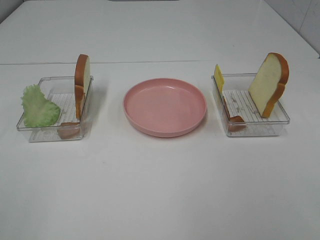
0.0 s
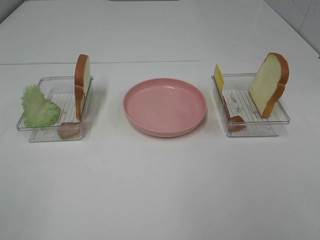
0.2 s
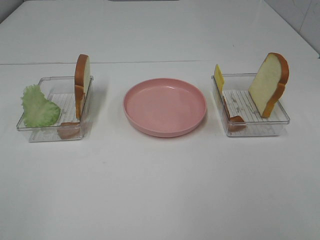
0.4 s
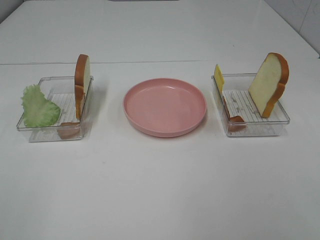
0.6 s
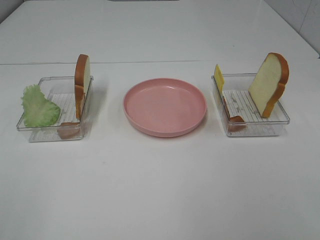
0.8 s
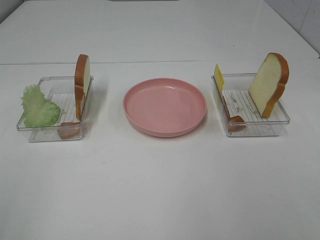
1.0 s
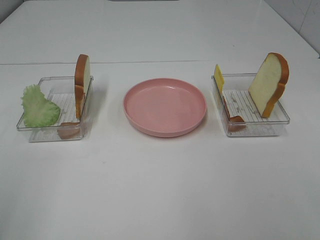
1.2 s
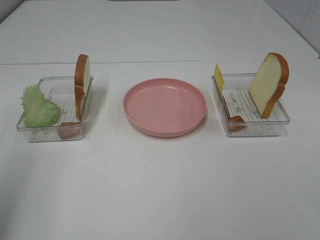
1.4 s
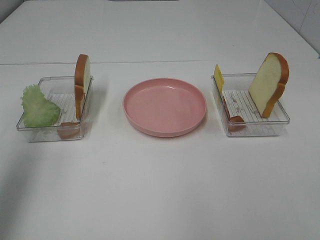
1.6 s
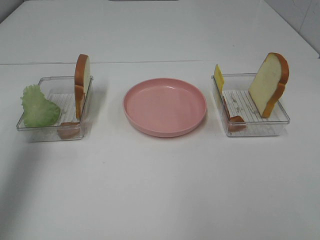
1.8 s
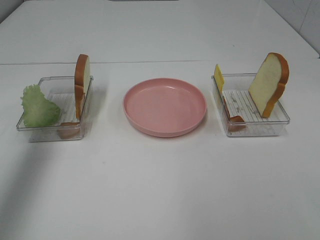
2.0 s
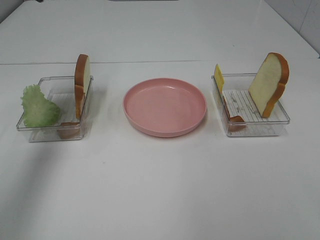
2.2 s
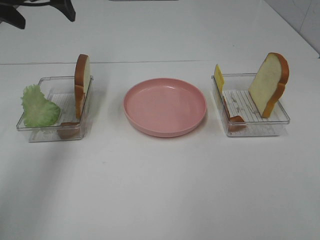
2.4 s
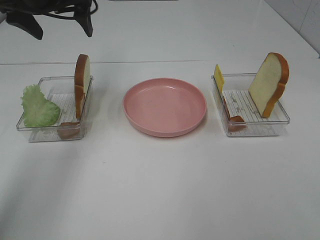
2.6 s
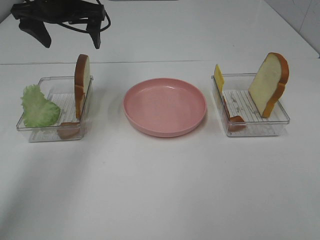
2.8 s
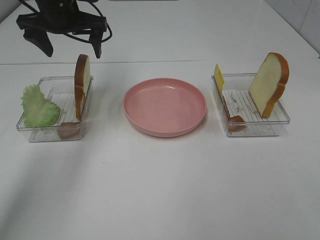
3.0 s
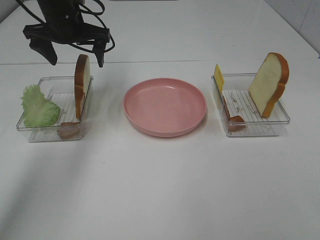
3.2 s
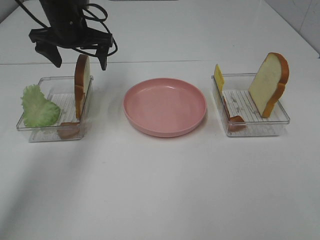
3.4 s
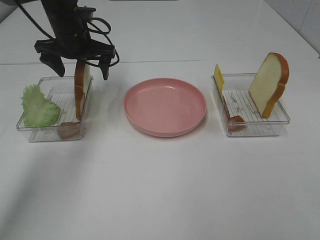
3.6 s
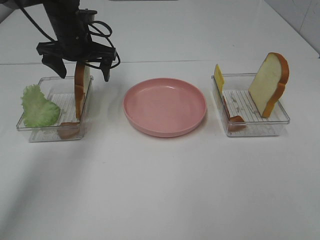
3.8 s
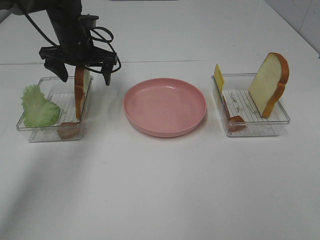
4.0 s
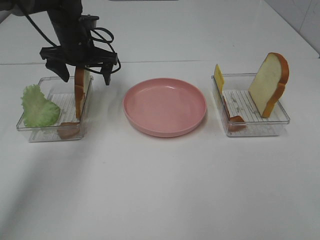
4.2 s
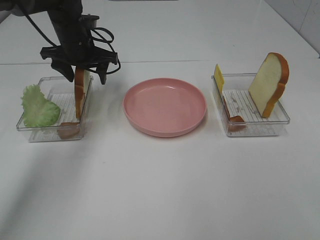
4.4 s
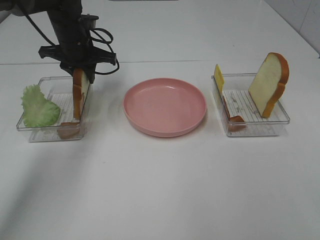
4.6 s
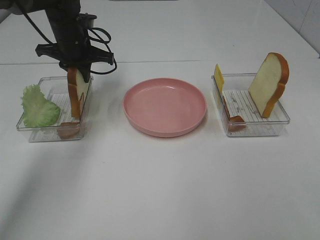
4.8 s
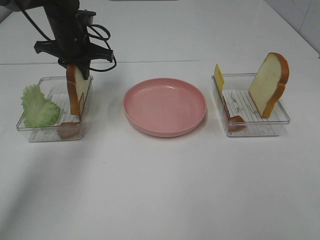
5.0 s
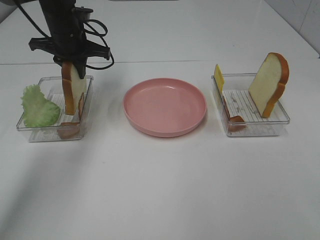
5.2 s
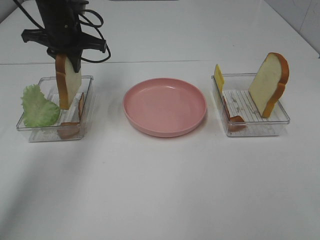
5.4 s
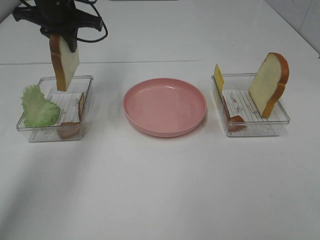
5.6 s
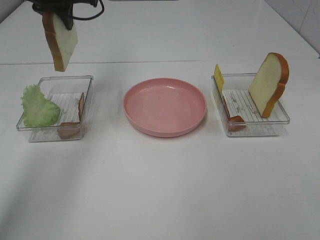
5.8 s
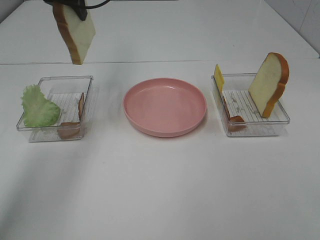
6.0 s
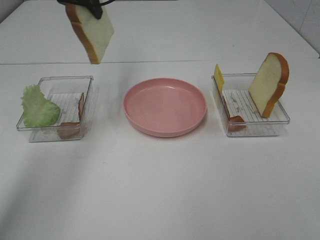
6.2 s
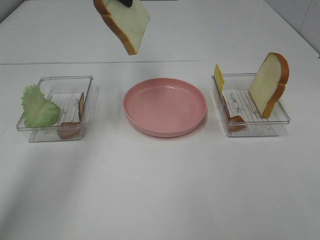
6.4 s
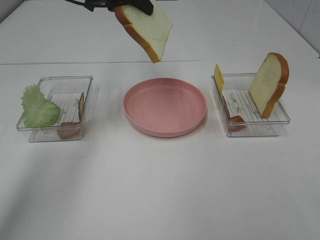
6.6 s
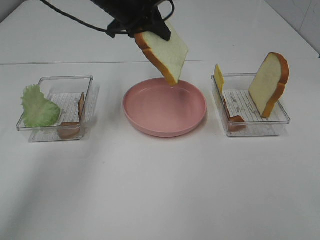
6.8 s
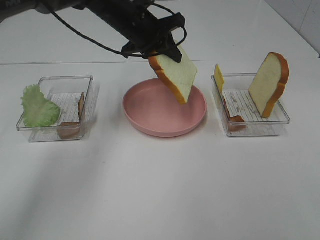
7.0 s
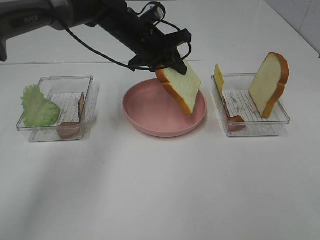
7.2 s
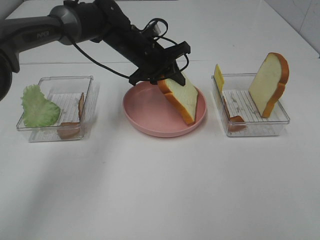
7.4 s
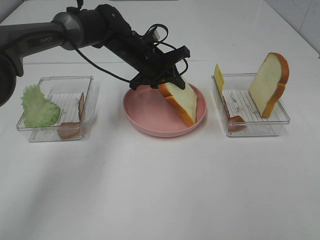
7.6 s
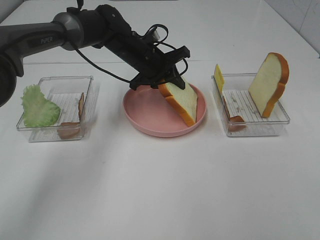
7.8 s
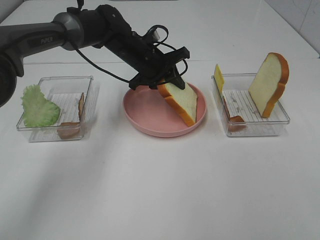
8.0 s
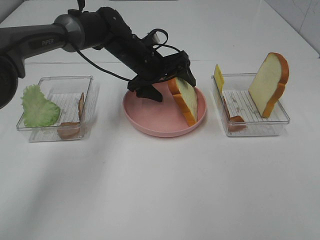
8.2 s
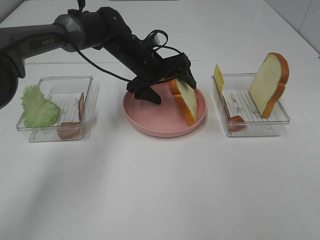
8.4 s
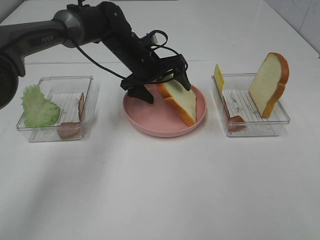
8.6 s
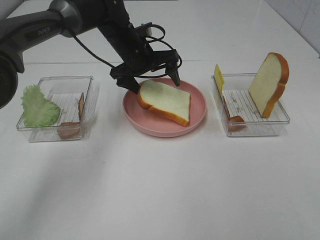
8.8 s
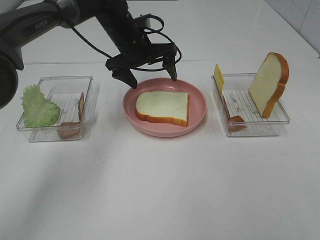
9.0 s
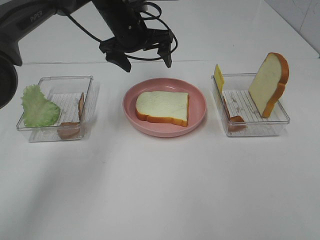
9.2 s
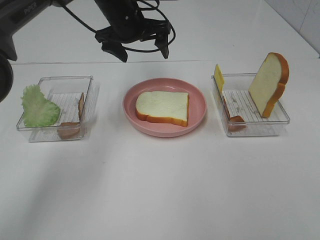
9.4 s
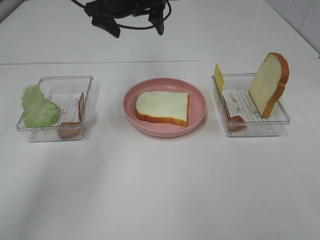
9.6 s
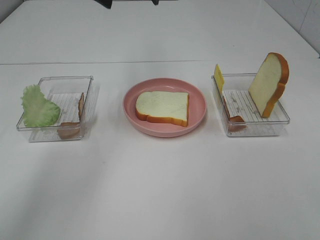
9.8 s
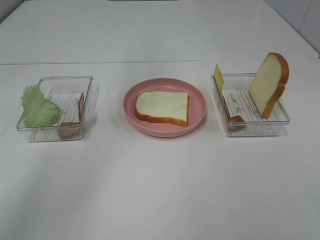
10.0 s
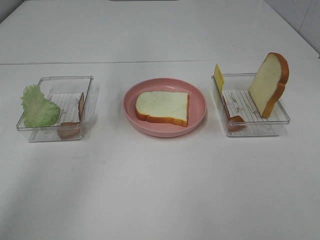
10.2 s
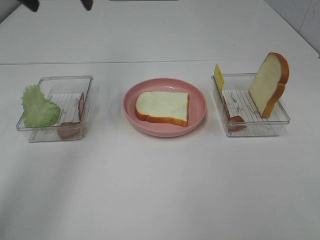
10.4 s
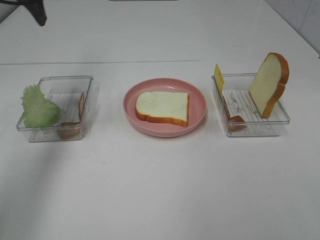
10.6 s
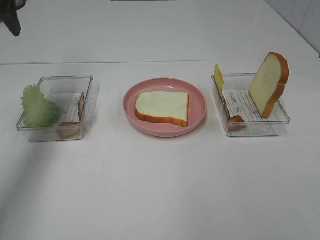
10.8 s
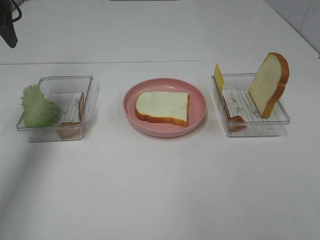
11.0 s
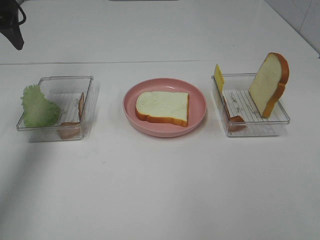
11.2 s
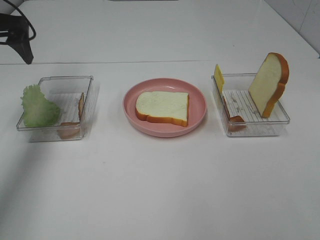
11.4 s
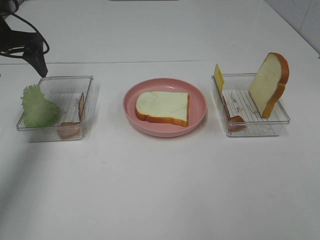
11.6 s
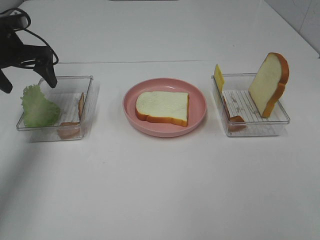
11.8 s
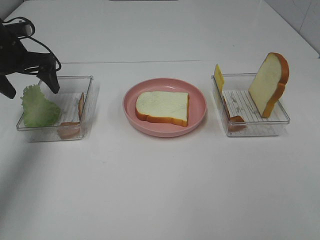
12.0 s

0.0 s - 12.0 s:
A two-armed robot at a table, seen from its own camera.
Task of the whole recording: Make sandwiches.
Step, 0.0 s - 4.8 s: Left hand:grab the bread slice.
Step, 5.0 s - 9.0 s: Left hand:place the bread slice on the plate.
0.0 s - 1.6 s: The left gripper moves forward and upward, approximately 25 cm.
1.6 s - 3.0 s: The left gripper goes about 35 cm forward, to the right and downward.
3.0 s - 4.4 s: The left gripper goes about 10 cm downward.
4.4 s - 6.0 s: The left gripper travels upward by roughly 15 cm, and closes its fingers.
6.0 s - 7.6 s: The left gripper shifts approximately 25 cm downward and to the right.
7.6 s - 9.0 s: The left gripper opens up.
9.0 s - 10.4 s: The left gripper travels upward and to the left by some 20 cm.
10.4 s - 12.0 s: The left gripper is displaced downward and to the left by roughly 20 cm.

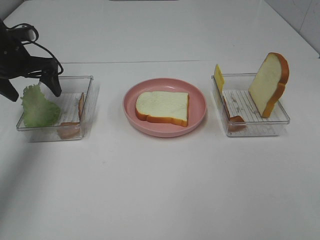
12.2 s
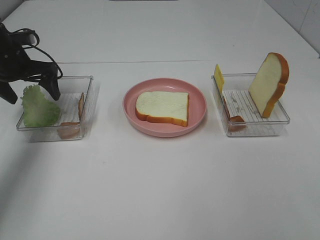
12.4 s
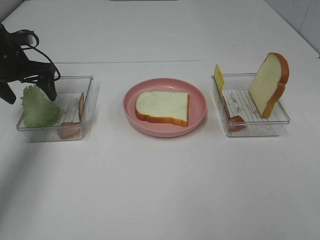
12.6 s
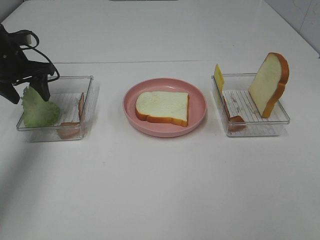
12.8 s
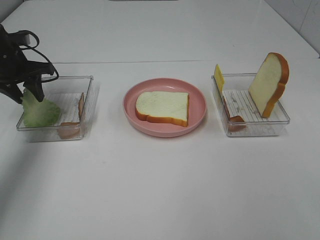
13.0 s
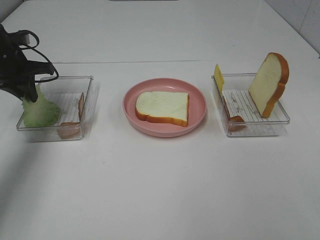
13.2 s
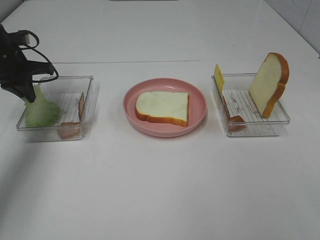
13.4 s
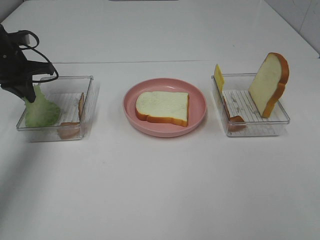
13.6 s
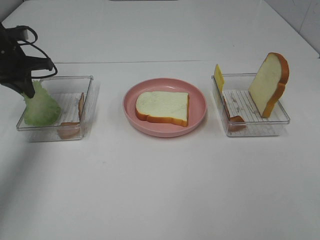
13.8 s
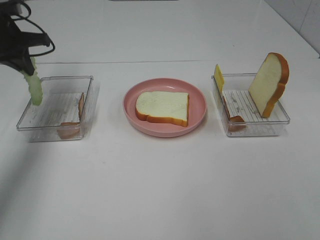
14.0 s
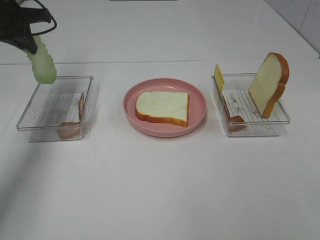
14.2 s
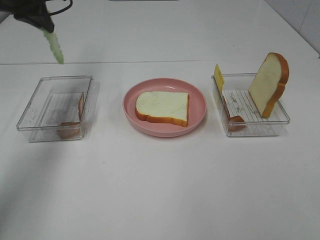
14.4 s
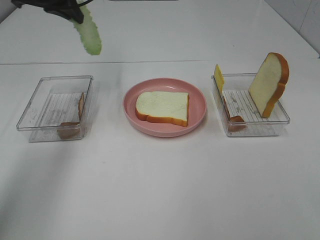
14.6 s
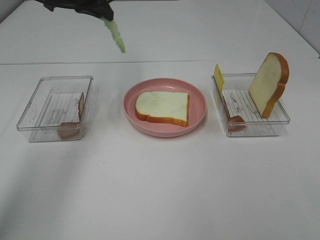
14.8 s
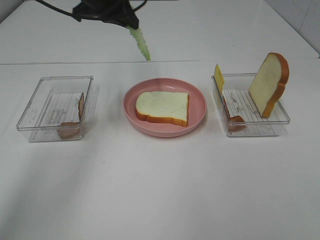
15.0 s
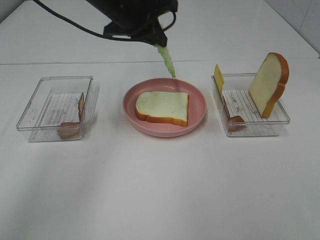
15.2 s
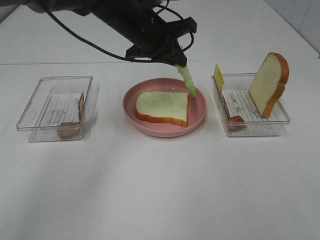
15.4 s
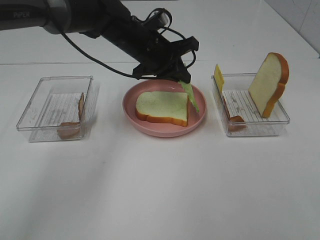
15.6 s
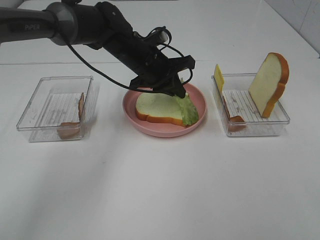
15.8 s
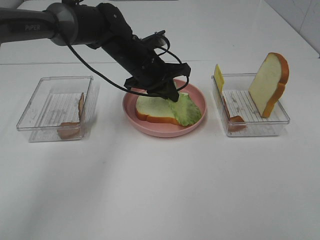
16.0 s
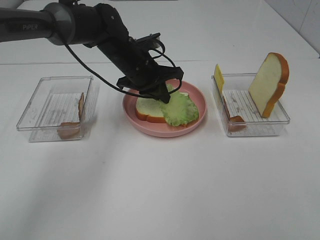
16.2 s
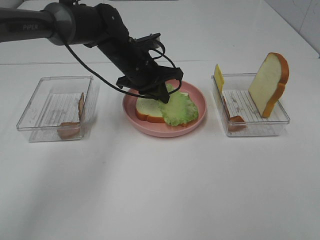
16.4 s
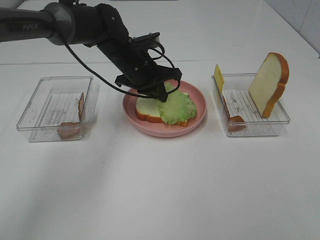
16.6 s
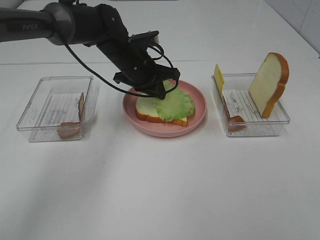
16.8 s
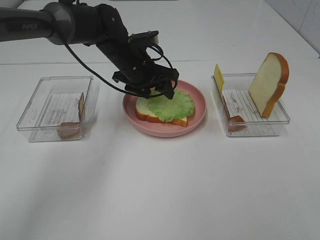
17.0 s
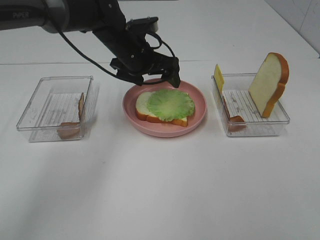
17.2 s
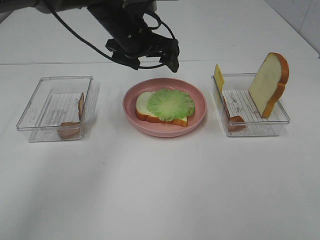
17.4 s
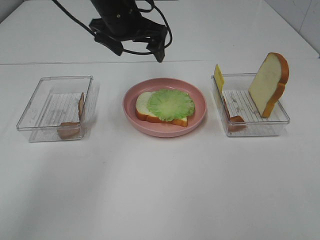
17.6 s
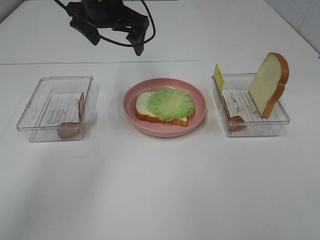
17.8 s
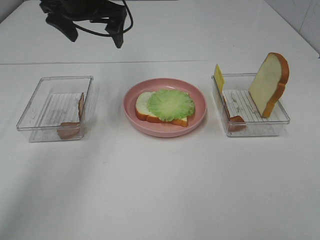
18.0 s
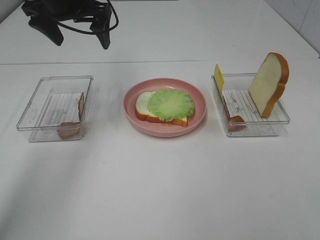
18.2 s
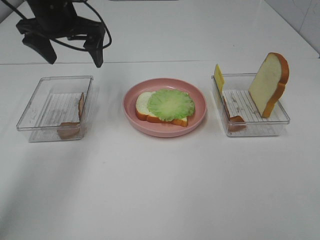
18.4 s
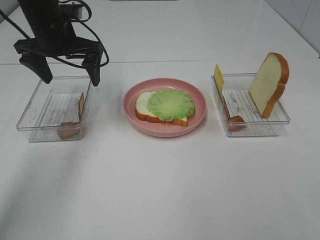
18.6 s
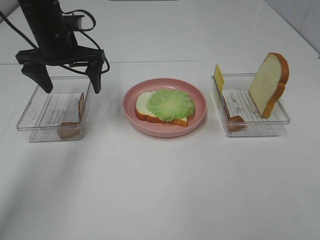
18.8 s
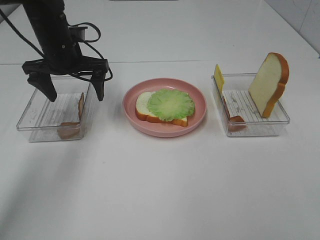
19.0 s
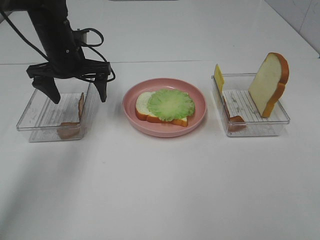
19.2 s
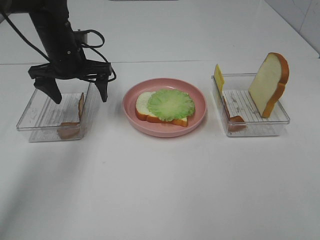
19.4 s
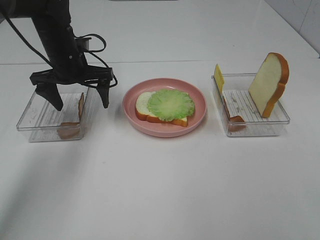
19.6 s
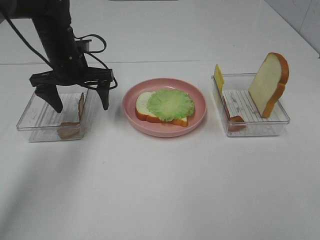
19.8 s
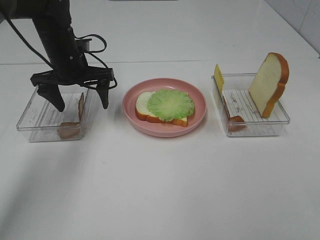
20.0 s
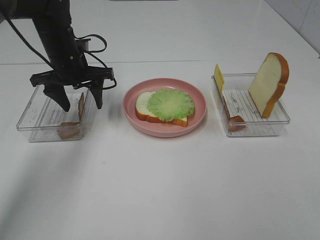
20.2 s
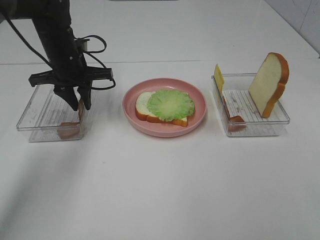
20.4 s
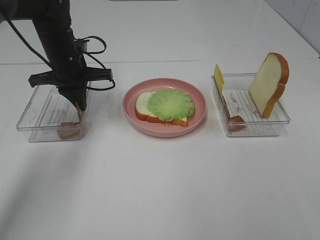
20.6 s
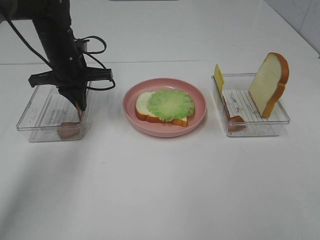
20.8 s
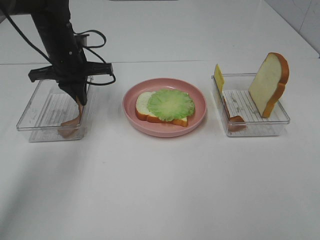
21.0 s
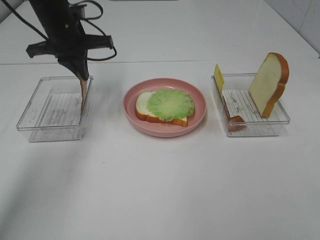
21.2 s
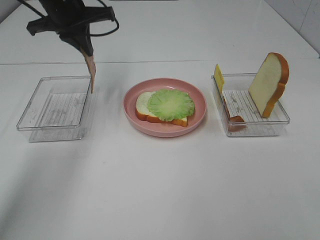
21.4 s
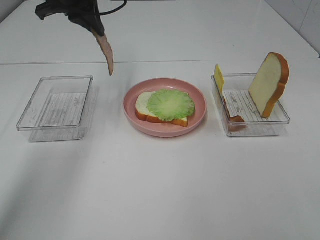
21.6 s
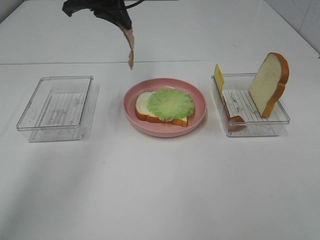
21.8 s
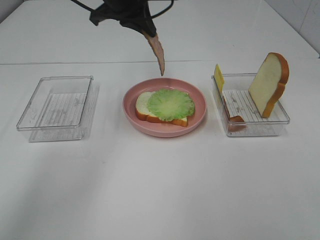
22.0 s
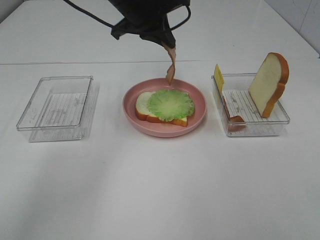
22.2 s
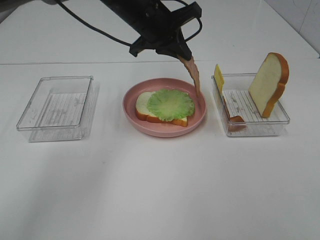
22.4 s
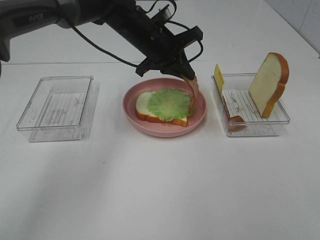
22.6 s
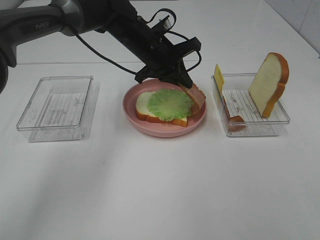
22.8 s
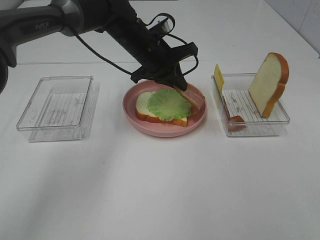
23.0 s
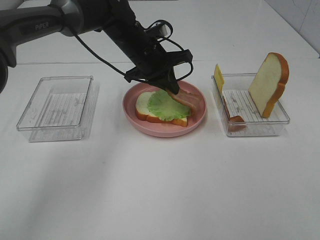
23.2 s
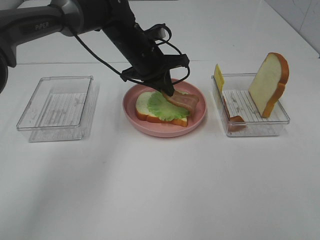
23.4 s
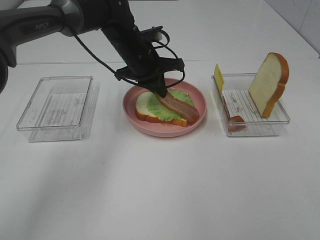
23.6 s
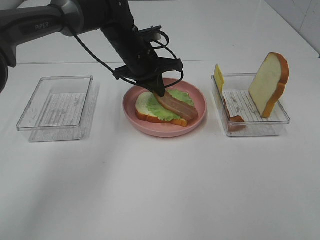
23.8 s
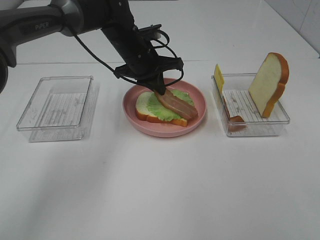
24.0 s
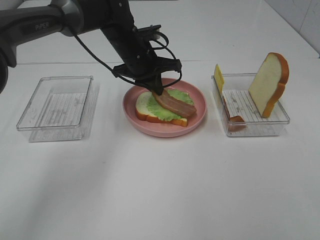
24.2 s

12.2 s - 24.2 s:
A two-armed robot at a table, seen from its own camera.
Task of the whole recording: Make sandwiches.
Step, 13.8 s - 17.2 s: Left hand:place the lettuce slice on the bread slice.
Step, 17.4 s - 21.0 s: Left hand:grab the bacon.
12.2 s - 13.8 s: The left gripper closes up.
13.8 s - 15.2 s: The left gripper heads to the right, covering some 25 cm.
15.2 s - 16.6 s: The left gripper travels downward by about 10 cm.
16.6 s - 18.2 s: The left gripper moves upward and to the left, approximately 20 cm, and opens up.
18.2 s - 19.8 s: The left gripper heads downward, covering approximately 10 cm.
19.8 s - 21.2 s: The left gripper travels upward by some 5 cm, and closes its fingers.
21.2 s - 22.6 s: The left gripper is displaced to the right by some 15 cm.
